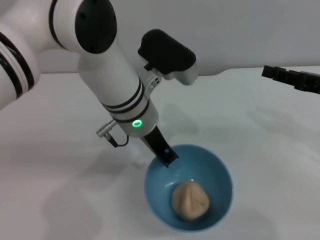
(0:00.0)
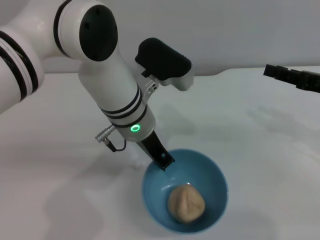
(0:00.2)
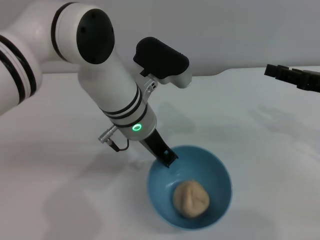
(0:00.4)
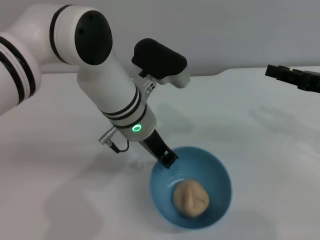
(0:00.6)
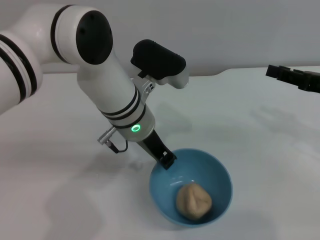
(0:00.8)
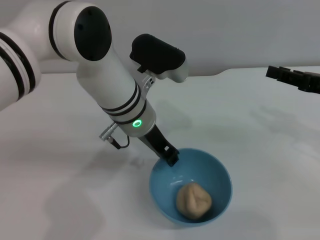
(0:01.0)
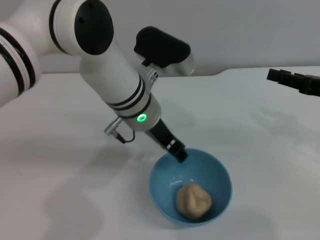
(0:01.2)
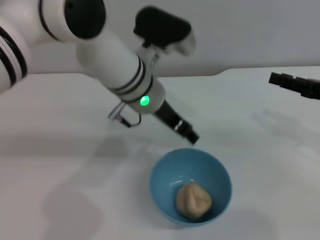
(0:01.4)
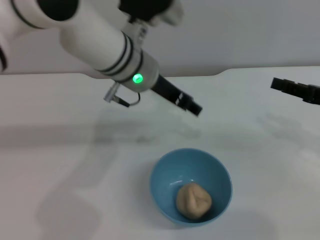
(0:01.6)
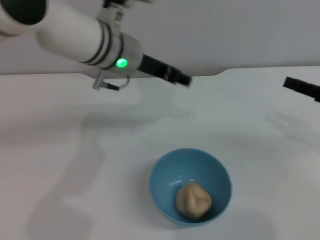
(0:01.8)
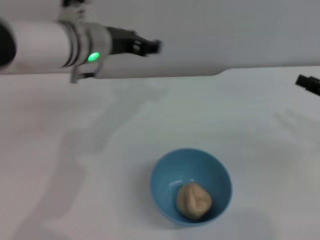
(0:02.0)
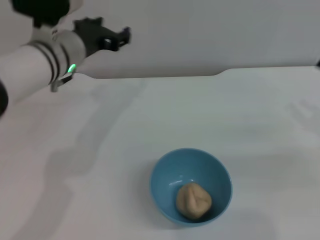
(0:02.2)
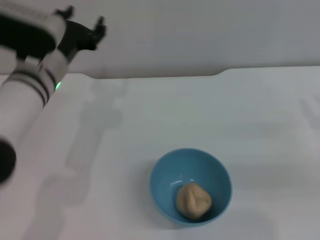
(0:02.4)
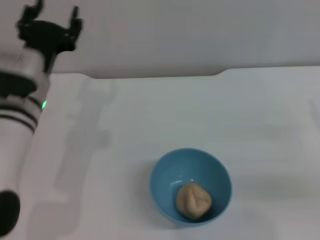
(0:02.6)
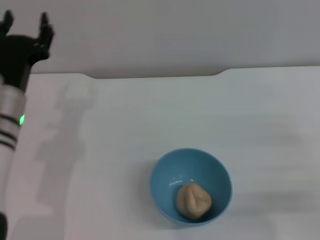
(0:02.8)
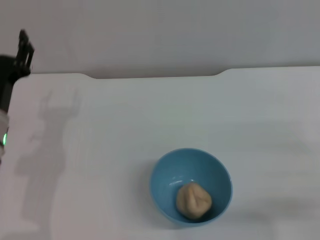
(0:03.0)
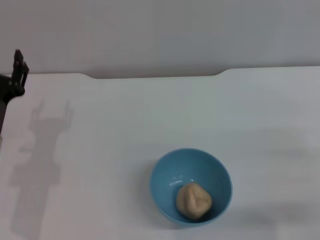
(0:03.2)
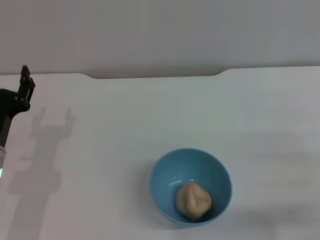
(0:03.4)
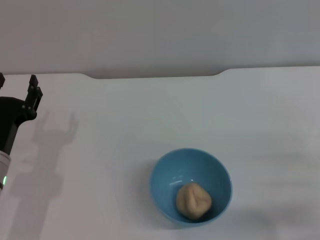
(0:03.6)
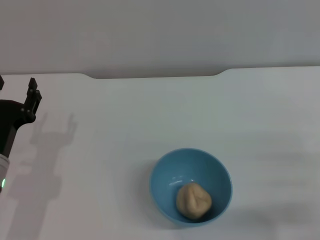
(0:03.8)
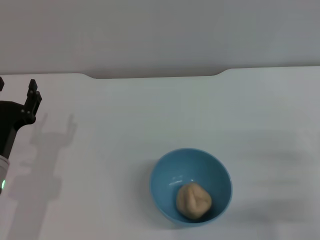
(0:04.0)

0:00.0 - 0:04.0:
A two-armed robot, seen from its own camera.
Task of the whole recording: put the egg yolk pastry into the blue bowl and pour it out repeatedly.
Step, 0:00.0 - 0:01.2: Place the bowl on the table.
0:00.0 - 0:01.4: The left gripper opens up.
0:01.4 - 0:02.6: The right gripper changes place by about 10 cm; the left gripper travels to the left by roughly 15 cm.
0:02.6 - 0:04.0: The left gripper travels backward, downward and to the left by about 15 cm, while the right gripper travels downward and to the left by roughly 10 cm.

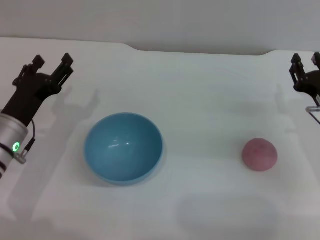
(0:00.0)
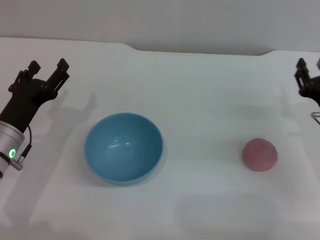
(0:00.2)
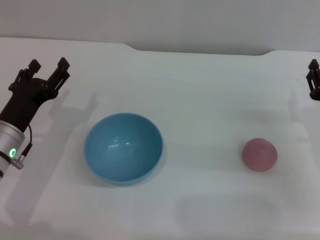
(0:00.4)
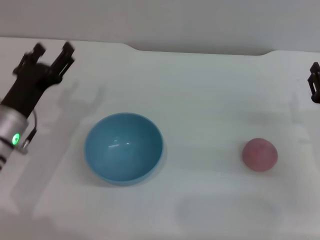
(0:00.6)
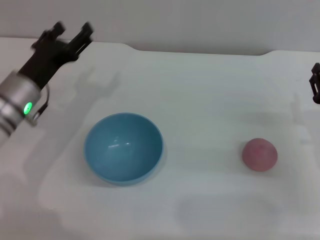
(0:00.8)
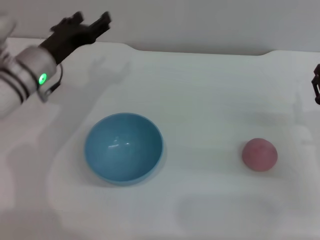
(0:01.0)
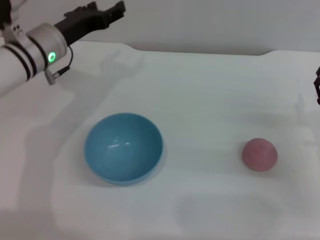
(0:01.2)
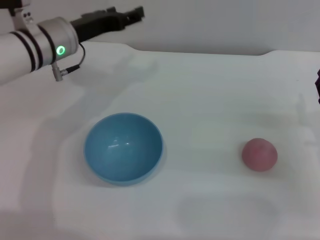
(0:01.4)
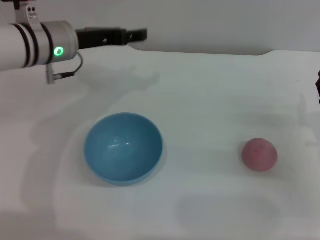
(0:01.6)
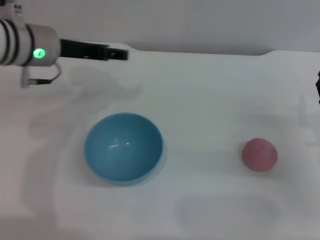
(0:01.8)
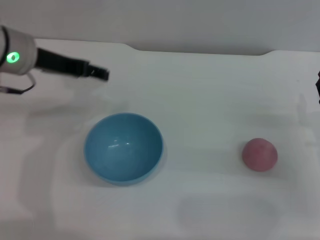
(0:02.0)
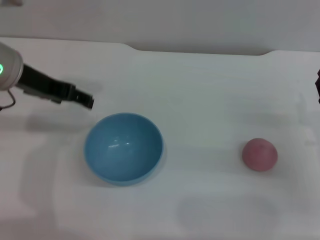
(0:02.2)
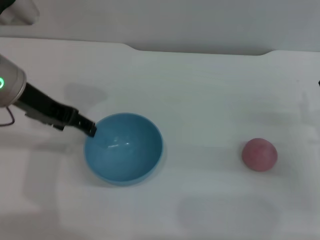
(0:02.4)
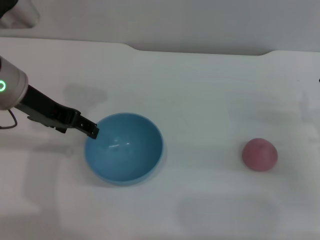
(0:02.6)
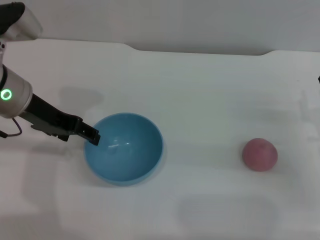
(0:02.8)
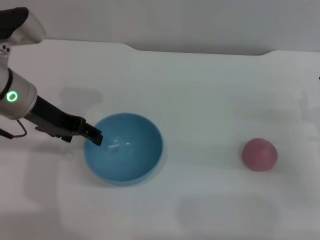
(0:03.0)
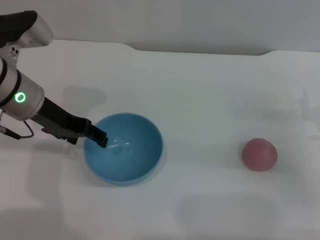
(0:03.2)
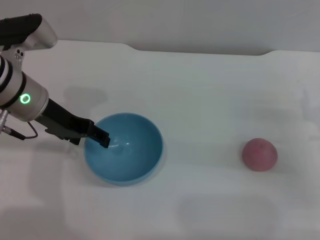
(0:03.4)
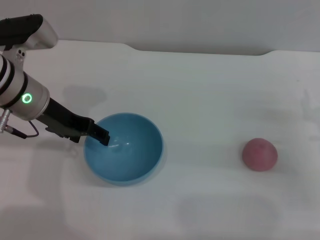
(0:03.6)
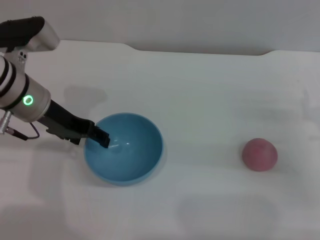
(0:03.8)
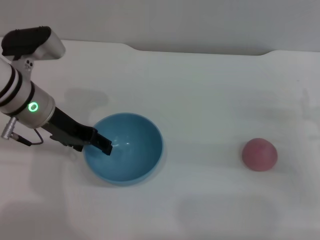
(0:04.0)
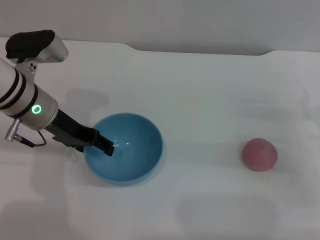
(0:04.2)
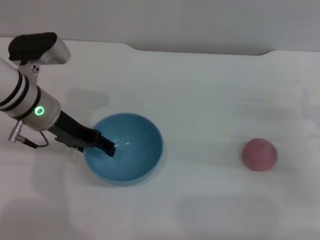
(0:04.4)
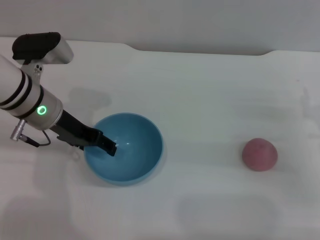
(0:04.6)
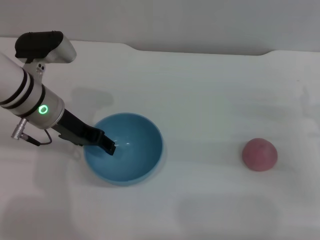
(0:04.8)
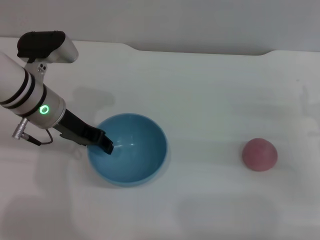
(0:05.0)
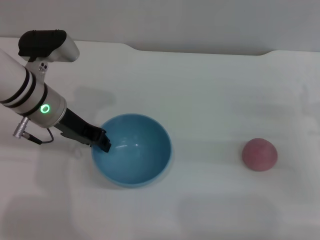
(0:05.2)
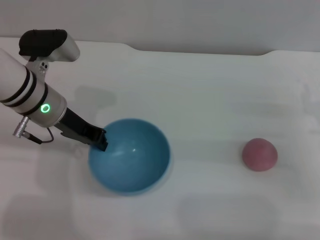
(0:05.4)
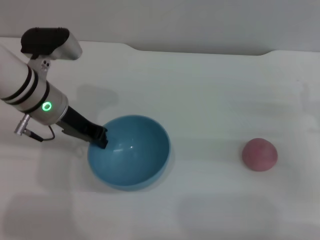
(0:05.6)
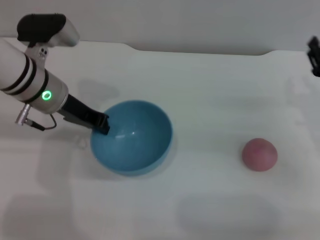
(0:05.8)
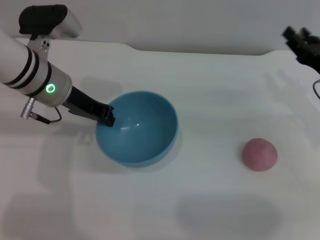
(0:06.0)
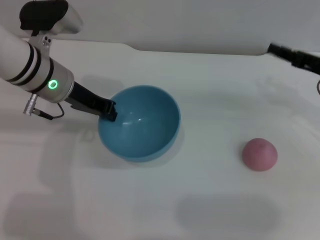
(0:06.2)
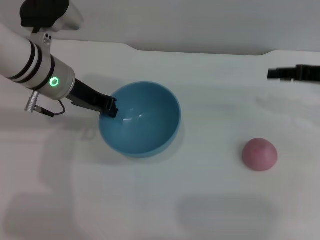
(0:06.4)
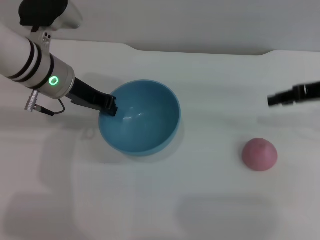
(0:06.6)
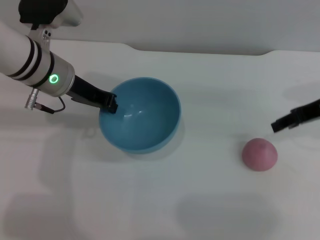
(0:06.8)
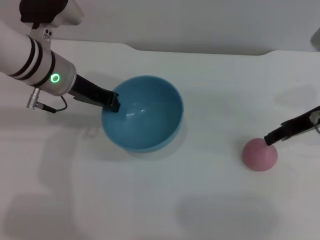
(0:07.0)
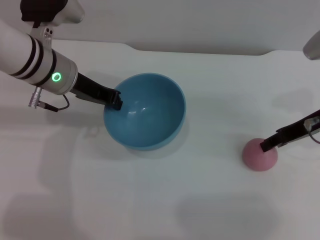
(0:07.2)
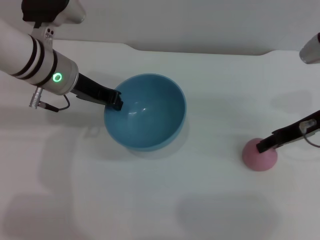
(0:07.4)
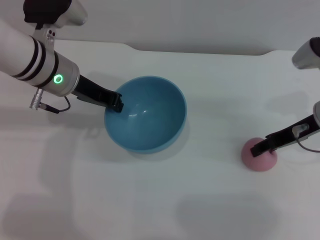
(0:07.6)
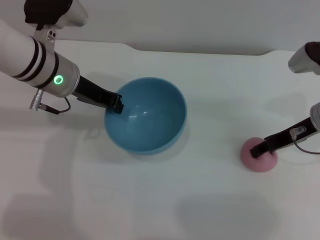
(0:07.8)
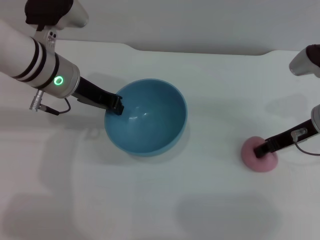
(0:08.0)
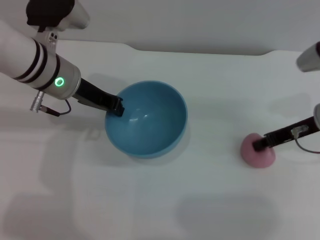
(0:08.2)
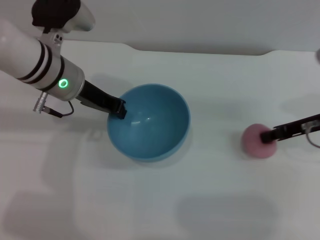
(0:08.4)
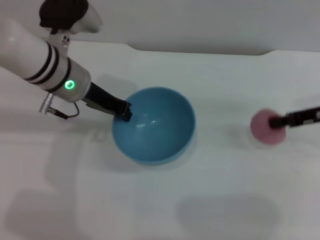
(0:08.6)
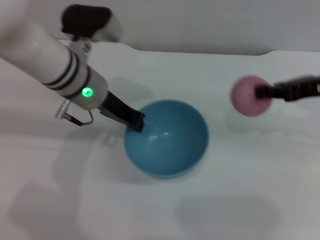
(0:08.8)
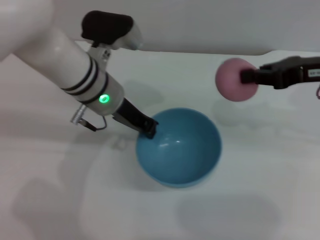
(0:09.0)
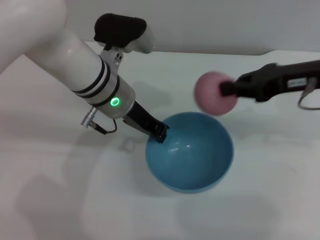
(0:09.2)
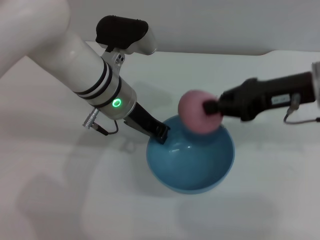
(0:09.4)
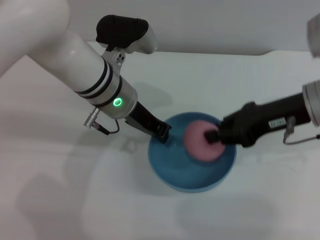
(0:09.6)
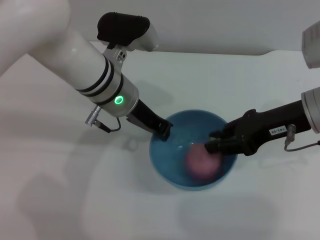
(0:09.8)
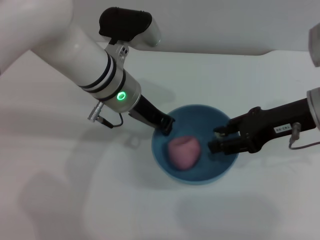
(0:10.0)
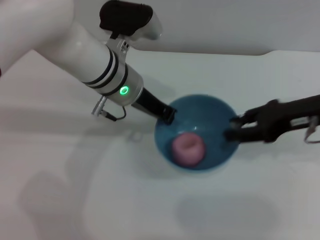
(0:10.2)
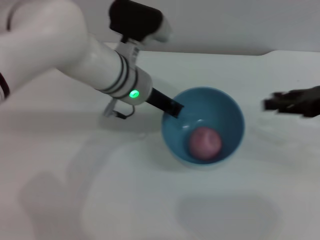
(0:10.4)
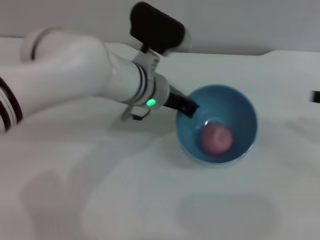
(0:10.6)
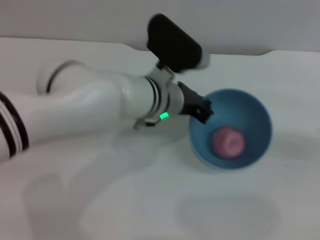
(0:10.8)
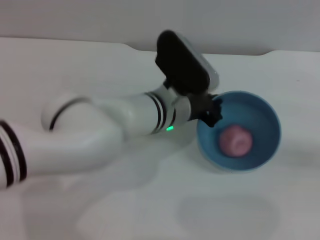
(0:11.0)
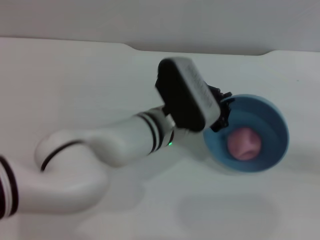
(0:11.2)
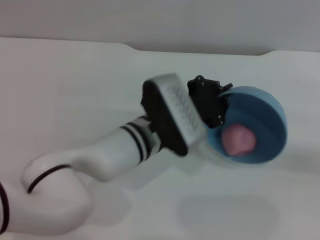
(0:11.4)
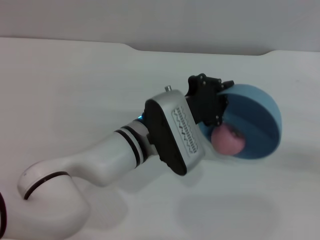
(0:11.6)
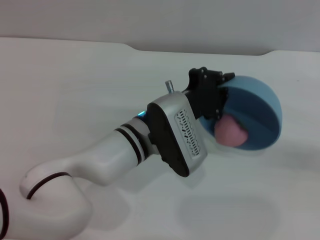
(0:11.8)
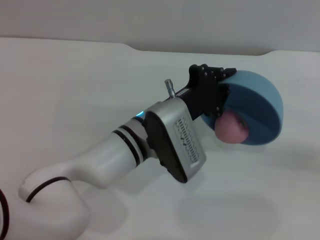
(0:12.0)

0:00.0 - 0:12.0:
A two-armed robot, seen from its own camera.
Task of the whole recording: put the peach into the blue bowl and pour it out repeatedly.
Step, 0:00.0 - 0:06.0: Pick up the bowl with the left gripper.
Step, 0:06.4 - 0:08.6: Pick up the peach with the right gripper.
Step, 0:08.8 - 0:10.2: Place the peach into the bowl.
0:00.0 - 0:01.6: The left gripper is displaced upward, forward and to the right by roughly 20 cm.
0:01.6 - 0:03.0: The left gripper heads backward, covering about 5 cm.
0:03.0 - 0:04.4: The left gripper shifts by roughly 5 cm.
0:04.4 - 0:06.0: The right gripper moves approximately 5 cm, while the left gripper closes.
0:07.6 - 0:09.0: The right gripper heads upward, covering roughly 10 cm, and closes up. Meanwhile the left gripper goes about 5 cm to the right.
0:09.0 - 0:10.4: The right gripper shifts by about 5 cm, and opens up.
0:10.4 - 0:12.0: The right gripper heads to the right, backward and downward, covering approximately 15 cm. Meanwhile the left gripper heads backward and downward, covering about 10 cm.

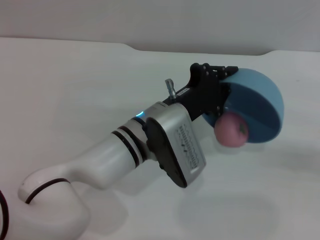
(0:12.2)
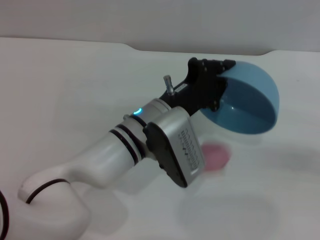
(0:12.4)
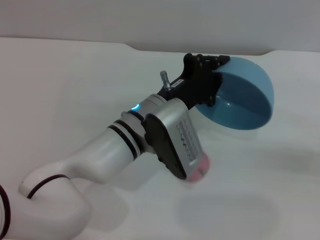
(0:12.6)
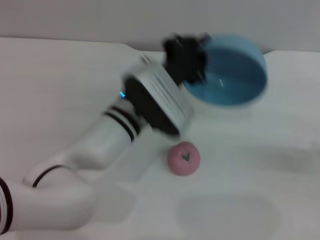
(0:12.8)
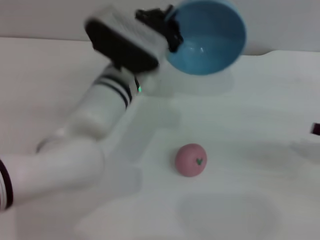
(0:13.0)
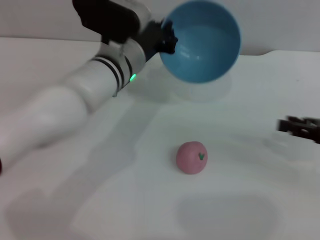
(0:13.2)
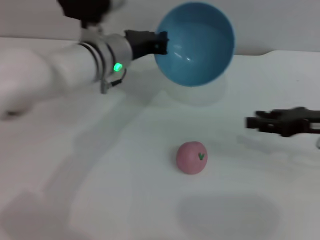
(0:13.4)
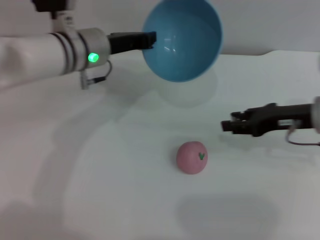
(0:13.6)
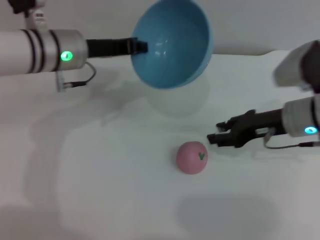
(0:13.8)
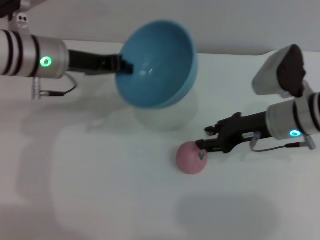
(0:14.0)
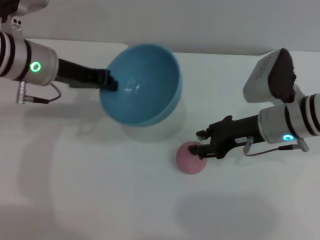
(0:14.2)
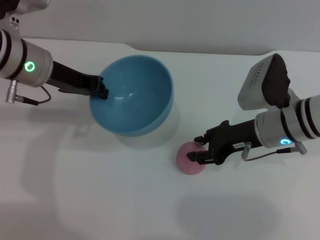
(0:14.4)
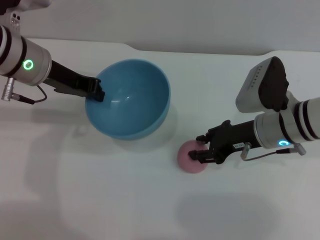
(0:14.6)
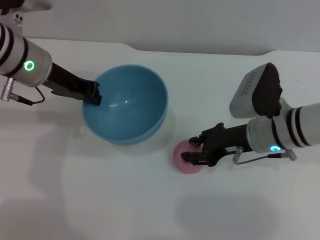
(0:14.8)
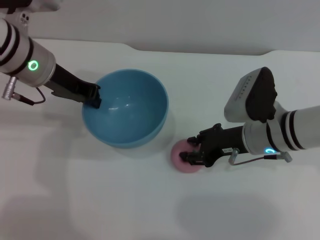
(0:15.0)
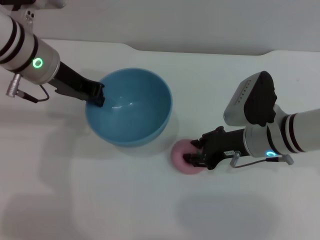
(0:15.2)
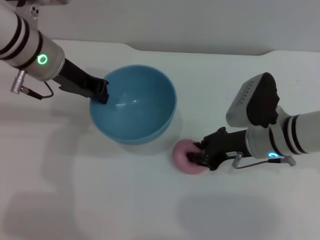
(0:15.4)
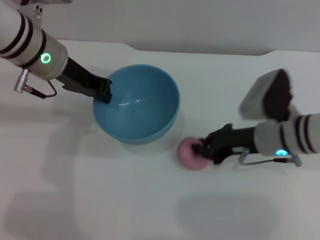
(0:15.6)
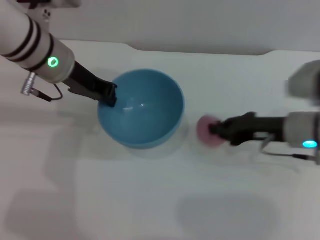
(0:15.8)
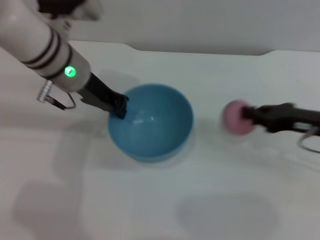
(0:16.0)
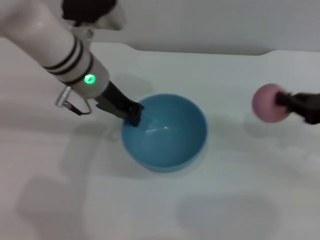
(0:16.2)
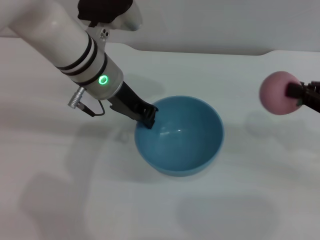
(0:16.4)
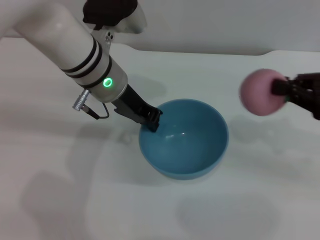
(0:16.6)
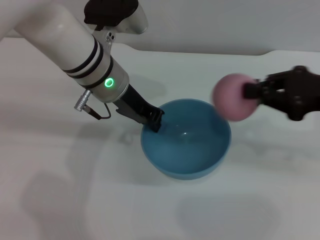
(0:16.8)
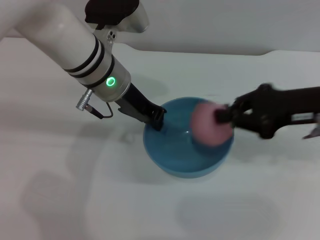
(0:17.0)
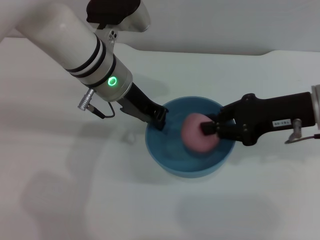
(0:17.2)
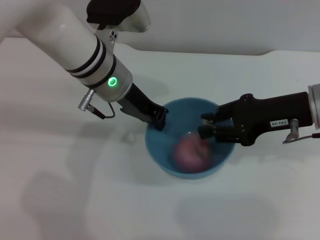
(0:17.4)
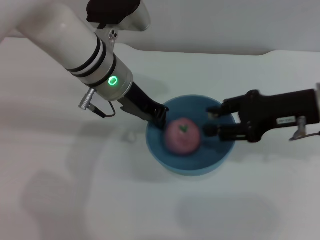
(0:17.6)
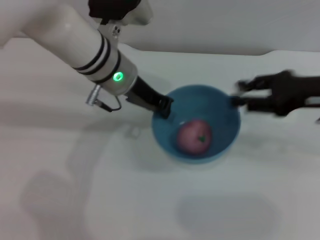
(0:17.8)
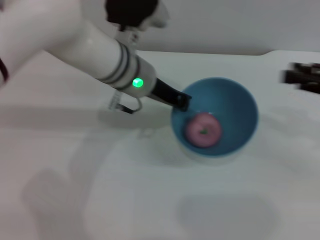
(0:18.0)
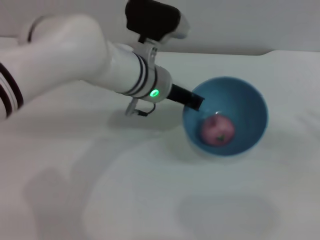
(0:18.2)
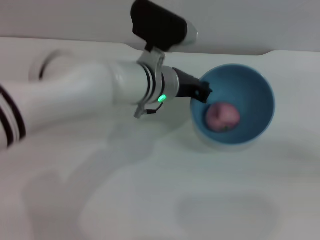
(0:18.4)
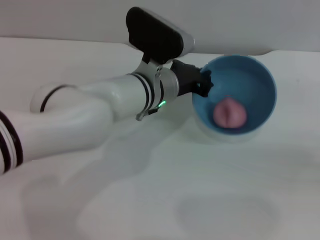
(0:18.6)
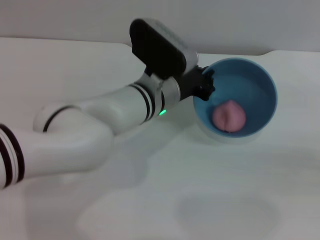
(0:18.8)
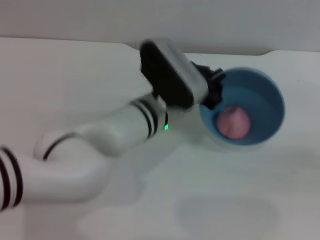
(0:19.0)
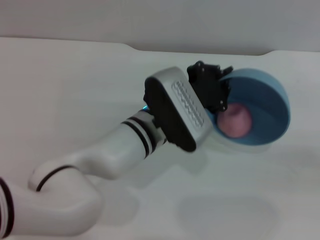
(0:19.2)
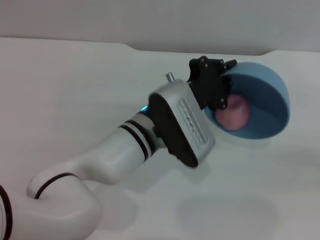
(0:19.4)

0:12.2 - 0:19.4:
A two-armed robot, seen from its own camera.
Task of the whole recording: put the peach into the blue bowl and pour it out repeatedly.
Step, 0:13.2 - 0:15.8: Pick up the peach with the right gripper.
Step, 0:16.2 - 0:17.6: Place the peach into the bowl.
0:12.2 - 0:13.6: The left gripper moves forward, to the left and upward, roughly 15 cm; the right gripper is displaced to the left and forward by approximately 20 cm.
0:13.6 - 0:15.0: The right gripper heads to the left, covering roughly 10 cm. The left gripper heads to the left, covering some 5 cm.
0:15.0 - 0:16.6: The right gripper heads to the right and upward, covering roughly 20 cm, and closes, while the left gripper heads to the right, covering about 10 cm.
0:16.6 - 0:18.0: The right gripper moves roughly 10 cm to the left and comes back, and opens.
0:18.0 - 0:19.4: The right gripper travels to the right, backward and downward by approximately 15 cm. The left gripper travels backward and downward by approximately 10 cm.
